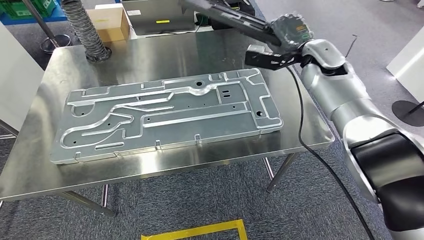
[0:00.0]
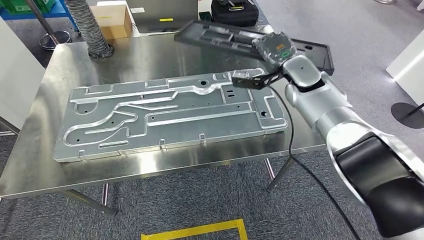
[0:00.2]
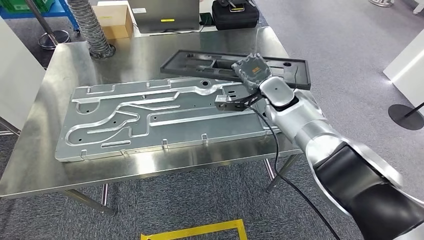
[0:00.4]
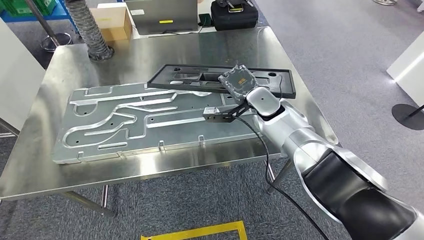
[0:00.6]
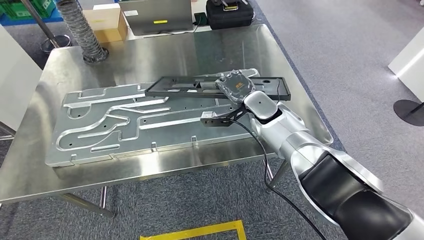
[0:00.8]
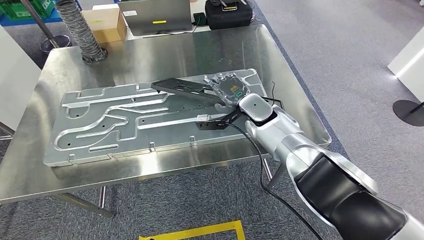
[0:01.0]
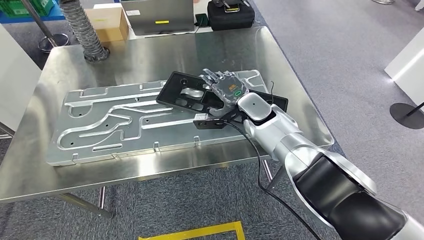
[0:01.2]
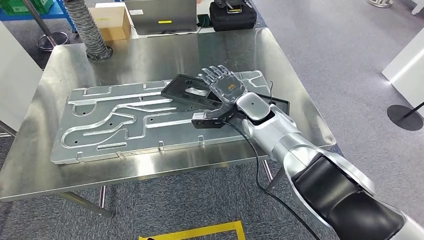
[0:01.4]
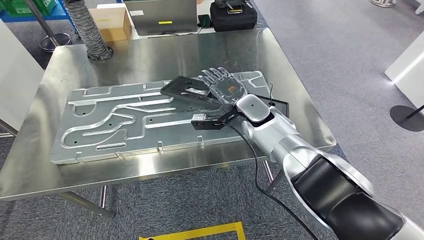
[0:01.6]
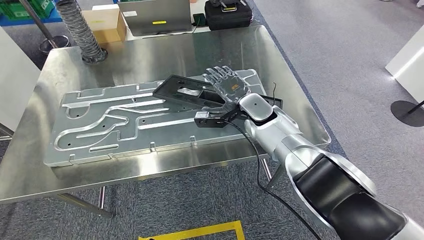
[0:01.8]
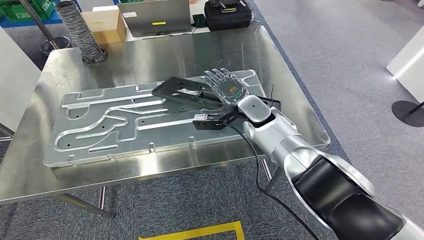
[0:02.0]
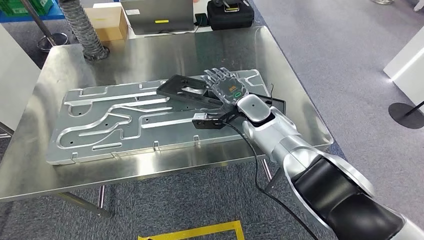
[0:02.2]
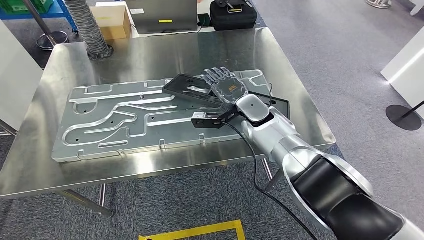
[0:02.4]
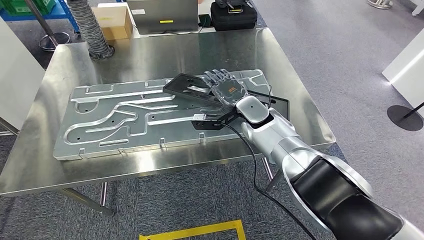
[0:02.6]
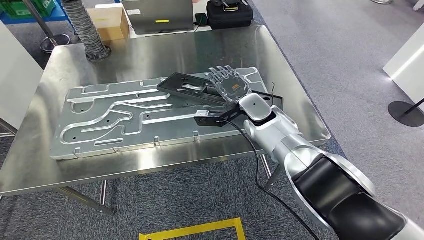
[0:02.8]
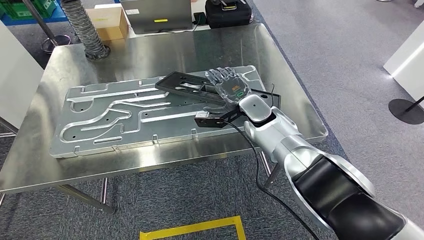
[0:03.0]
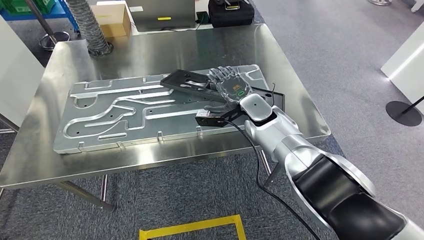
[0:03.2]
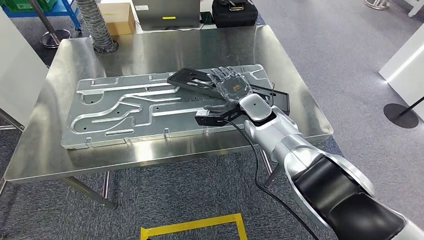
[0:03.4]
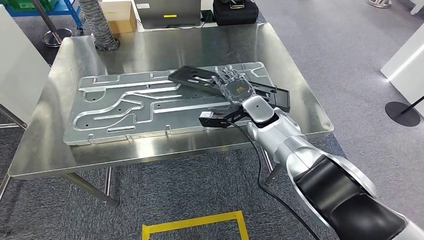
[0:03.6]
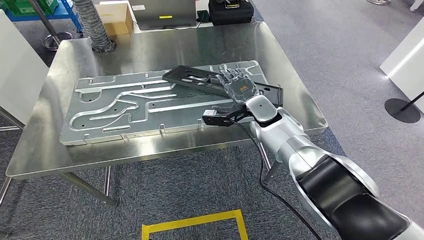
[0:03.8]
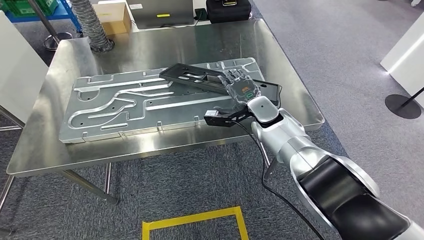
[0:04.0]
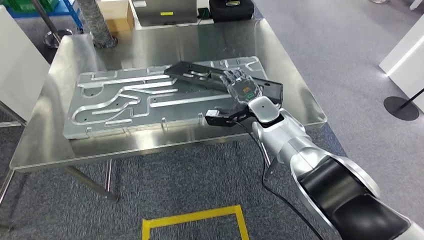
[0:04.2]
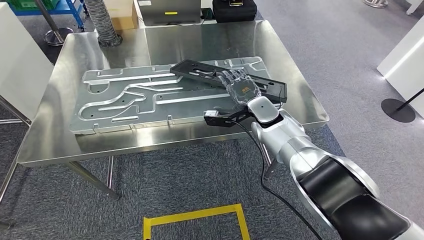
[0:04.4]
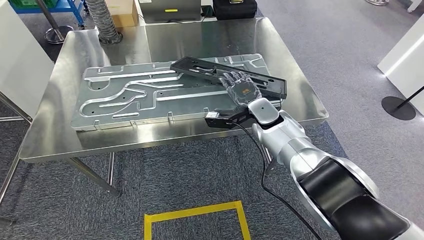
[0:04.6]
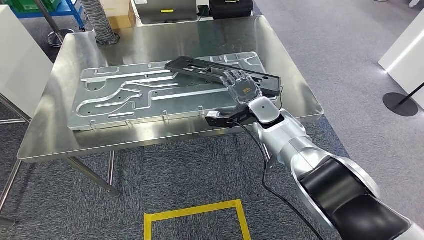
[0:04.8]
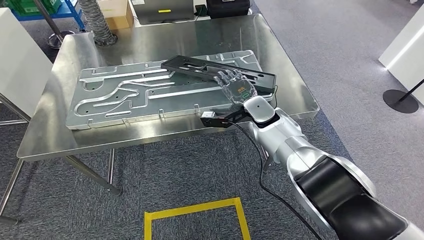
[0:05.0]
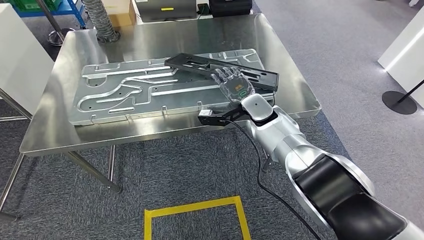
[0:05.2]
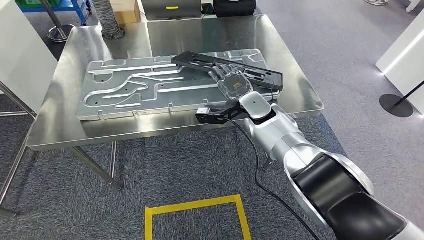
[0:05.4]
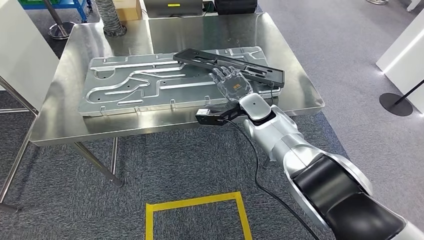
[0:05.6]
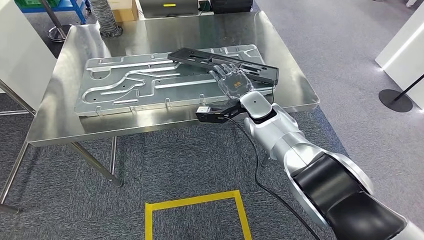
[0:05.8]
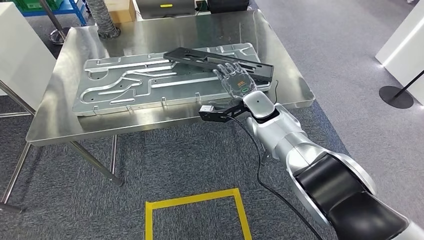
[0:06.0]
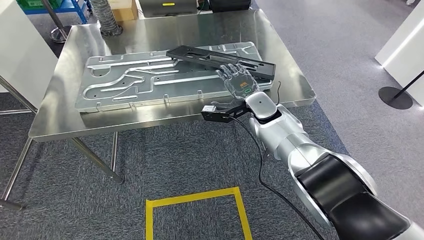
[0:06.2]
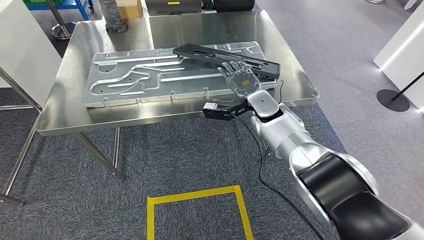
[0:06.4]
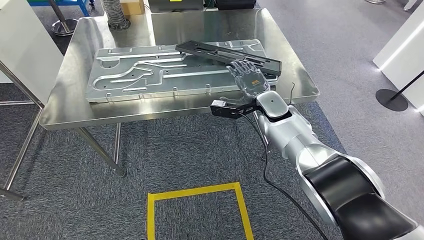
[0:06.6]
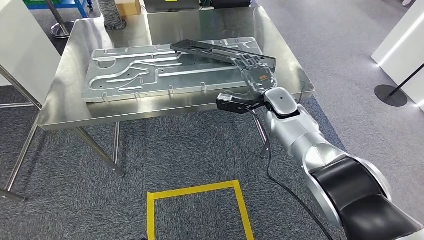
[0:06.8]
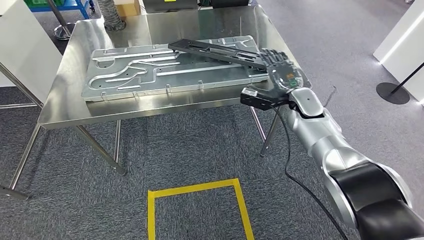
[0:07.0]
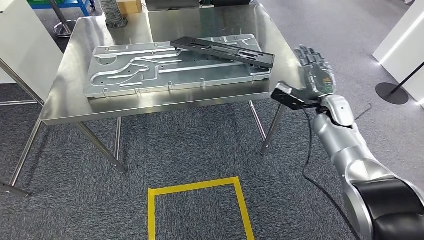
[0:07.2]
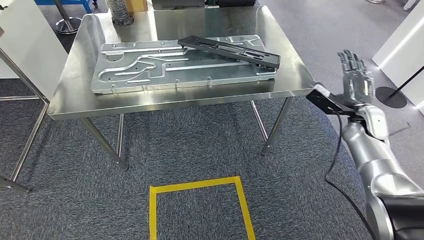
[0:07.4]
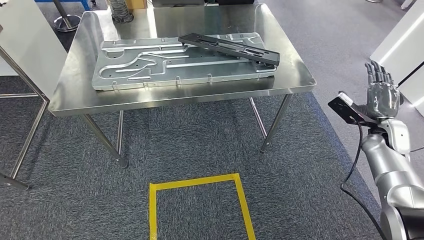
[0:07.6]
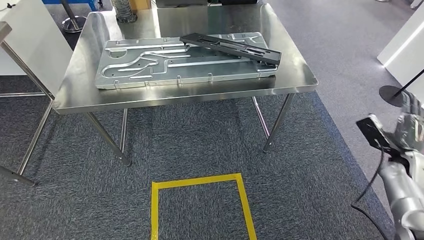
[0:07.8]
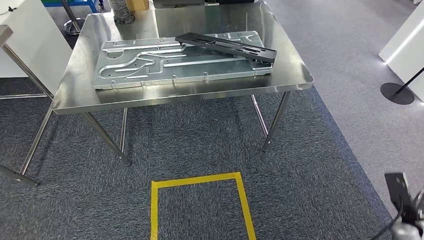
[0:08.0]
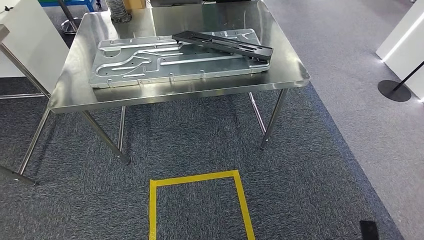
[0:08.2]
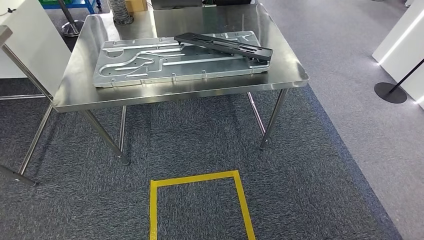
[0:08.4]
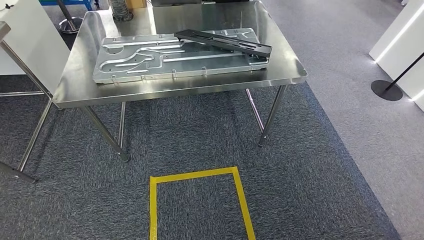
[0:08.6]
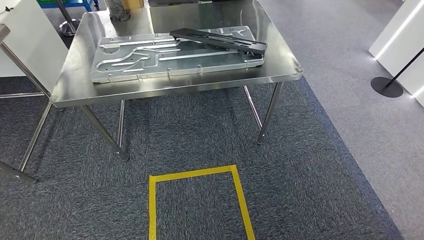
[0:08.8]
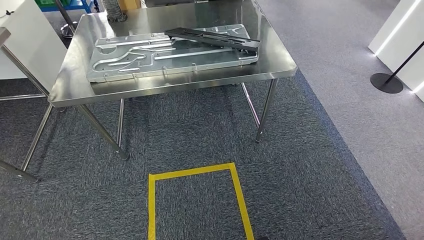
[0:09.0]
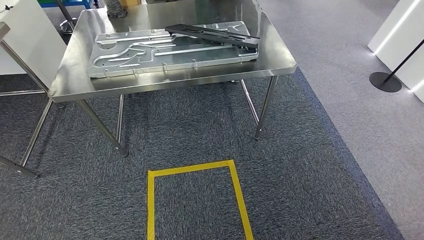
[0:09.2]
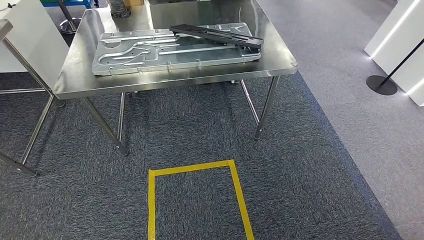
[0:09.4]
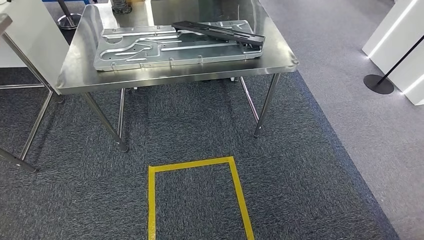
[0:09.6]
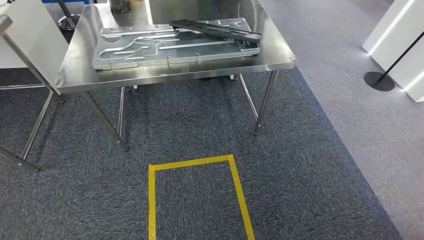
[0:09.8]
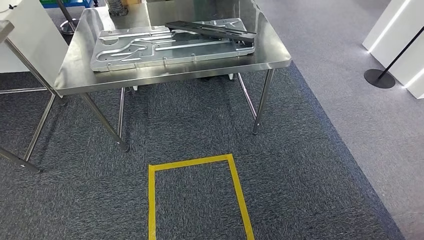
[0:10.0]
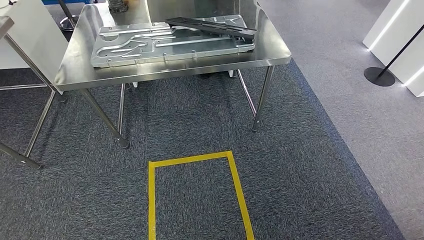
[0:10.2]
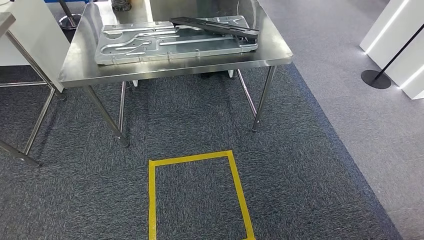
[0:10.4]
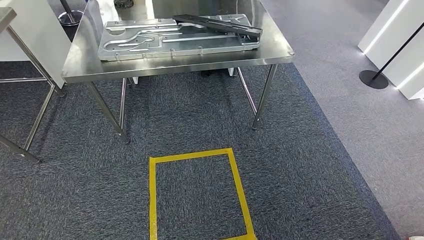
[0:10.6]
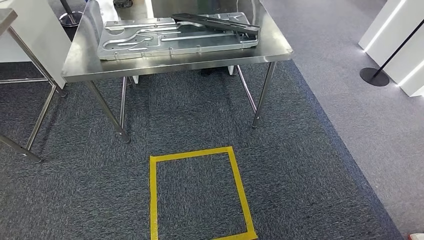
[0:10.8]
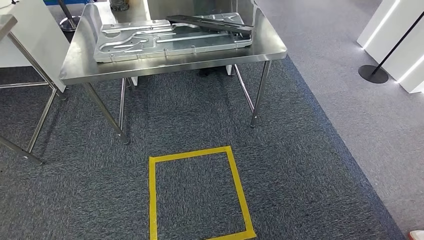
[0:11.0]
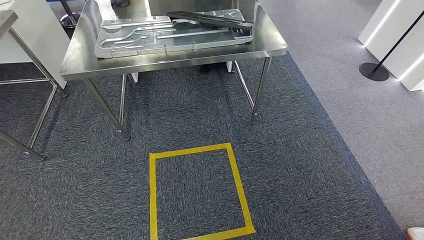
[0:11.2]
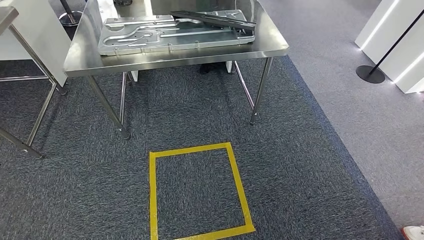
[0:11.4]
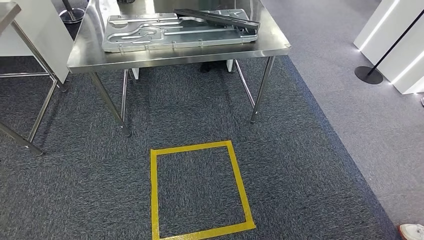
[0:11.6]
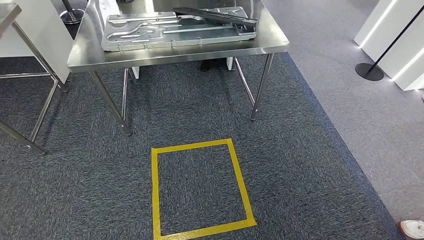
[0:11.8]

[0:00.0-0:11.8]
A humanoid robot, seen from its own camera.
Step, 0:00.0 to 0:02.8: Insert the large material into the corresponding slot on the workbench.
Step, 0:07.2 to 0:11.8: Return to the initial position at the shelf.

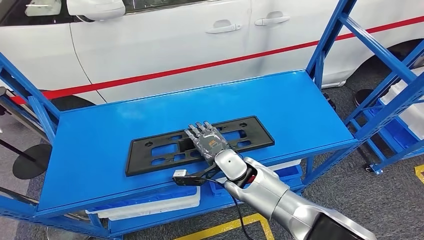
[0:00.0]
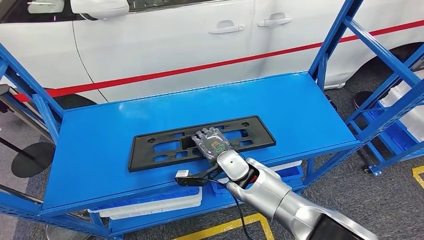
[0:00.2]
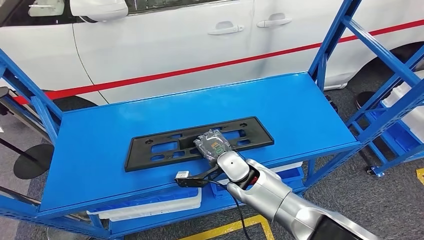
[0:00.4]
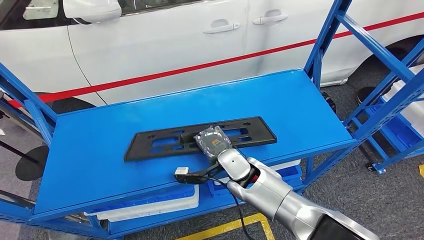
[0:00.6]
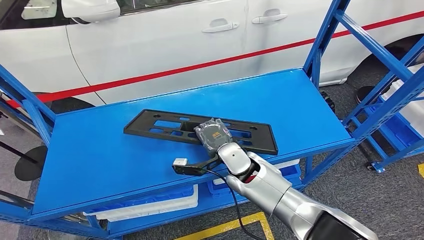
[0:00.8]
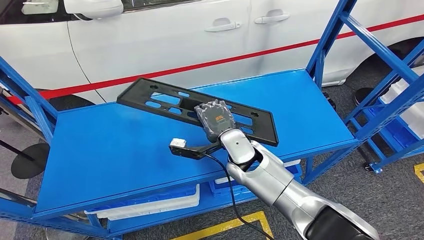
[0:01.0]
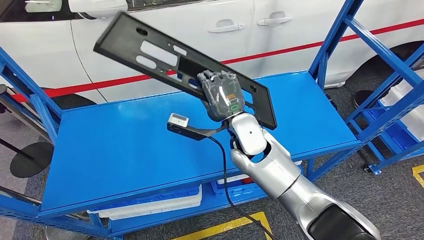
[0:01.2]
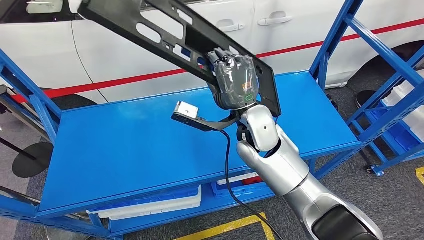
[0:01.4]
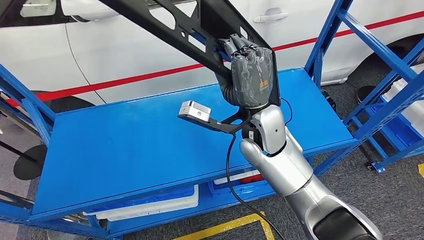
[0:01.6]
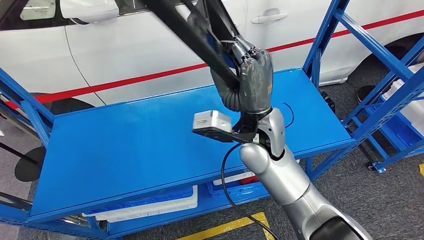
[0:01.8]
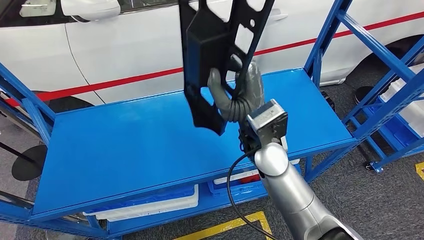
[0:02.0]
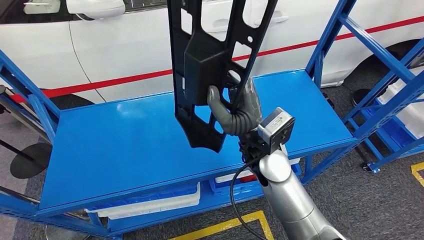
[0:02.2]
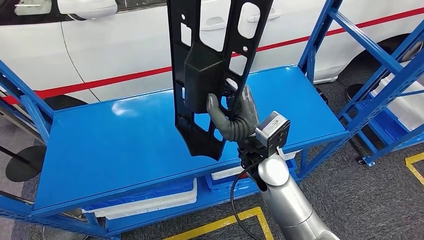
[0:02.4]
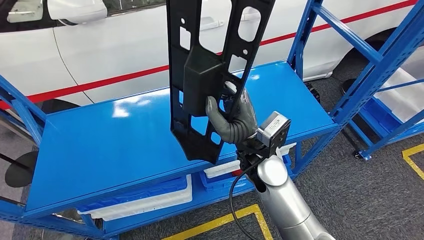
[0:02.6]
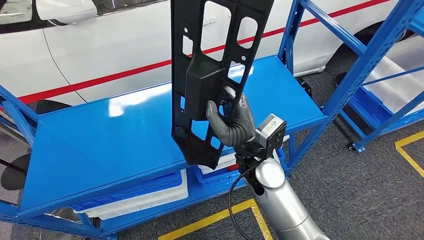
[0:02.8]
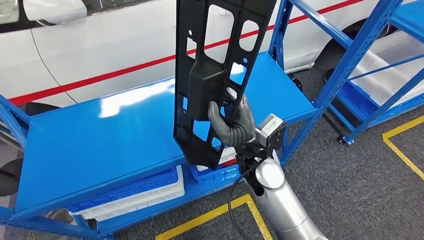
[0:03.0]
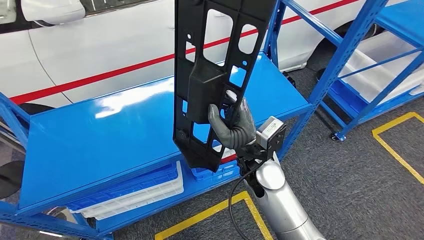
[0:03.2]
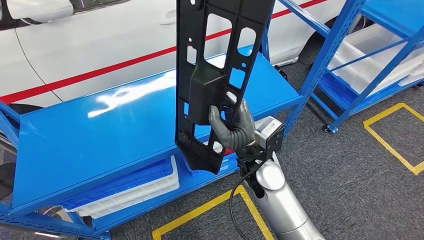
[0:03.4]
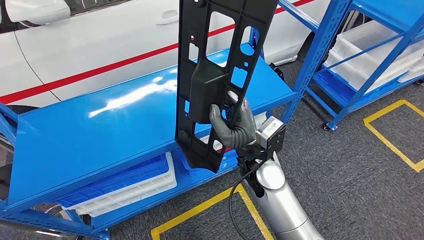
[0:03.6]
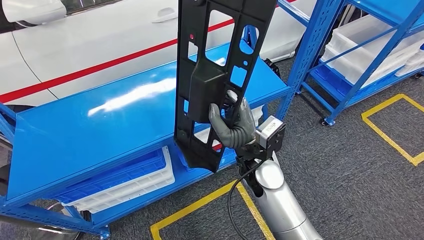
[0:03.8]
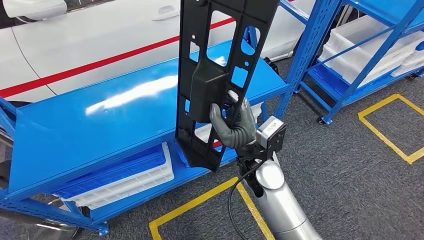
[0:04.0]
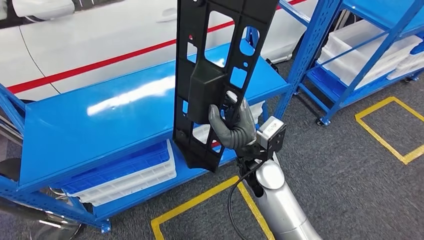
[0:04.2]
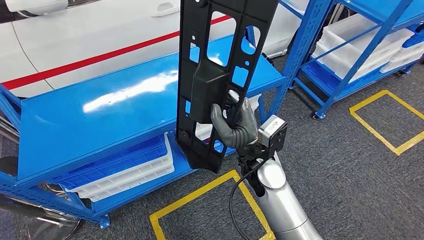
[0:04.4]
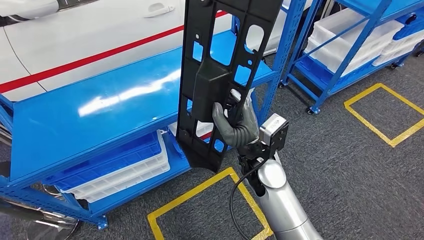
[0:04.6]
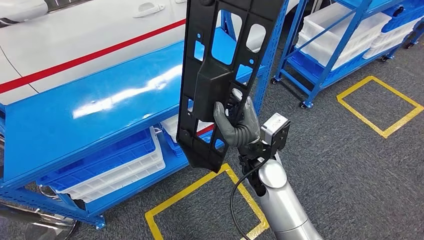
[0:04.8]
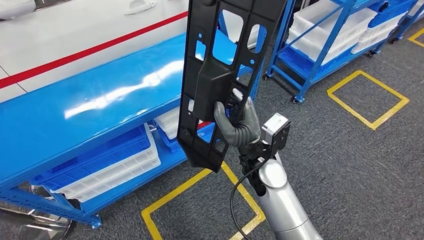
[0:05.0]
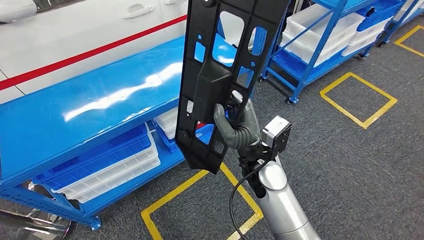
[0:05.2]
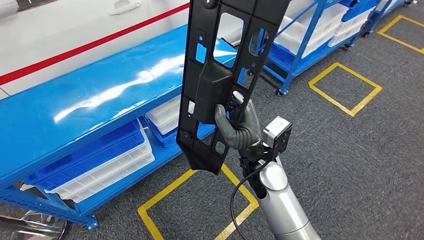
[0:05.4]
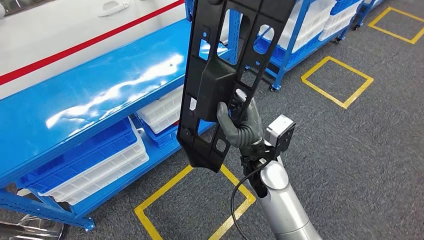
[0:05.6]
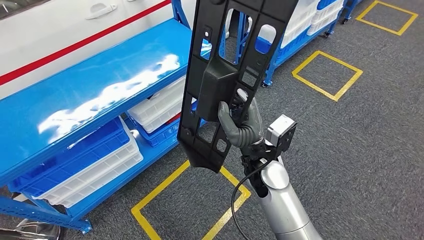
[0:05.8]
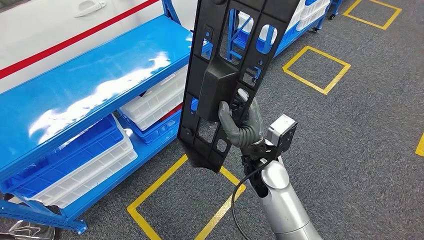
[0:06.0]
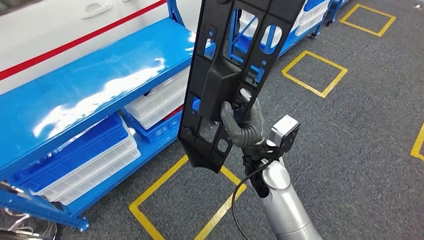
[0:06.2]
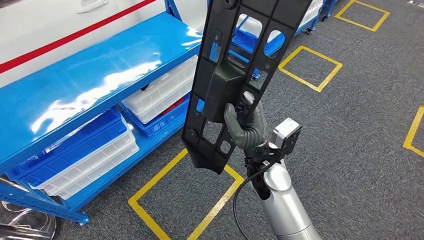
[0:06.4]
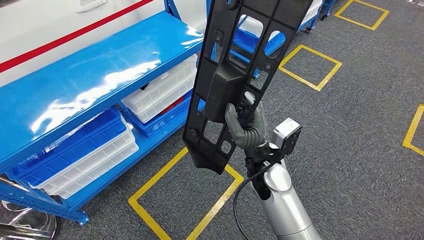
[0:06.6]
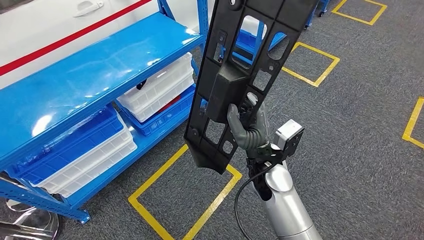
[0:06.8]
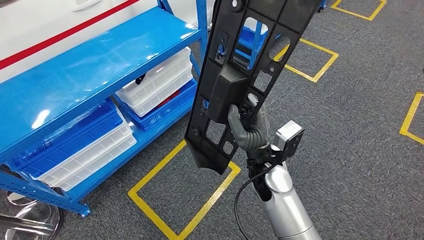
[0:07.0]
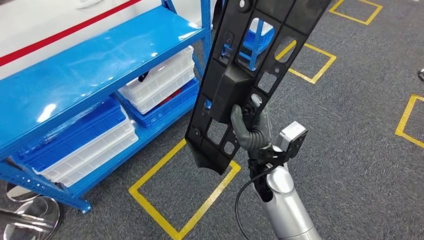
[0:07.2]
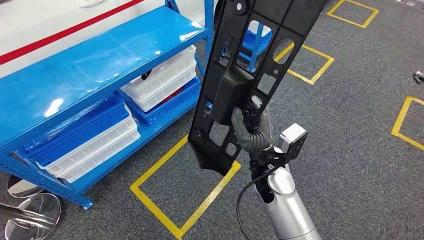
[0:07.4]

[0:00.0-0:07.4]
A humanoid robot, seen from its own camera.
Step, 0:00.0 to 0:02.6: Pick up the large material from the shelf.
